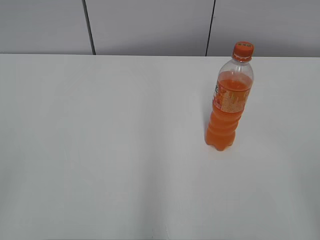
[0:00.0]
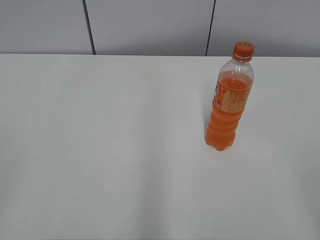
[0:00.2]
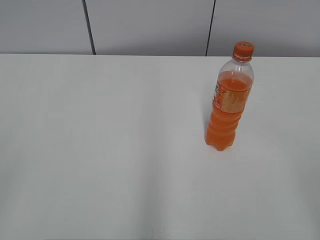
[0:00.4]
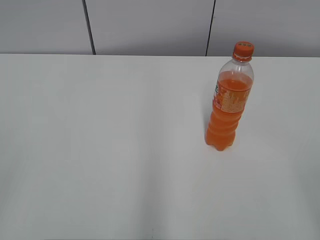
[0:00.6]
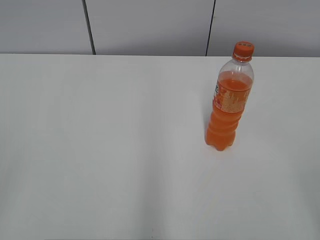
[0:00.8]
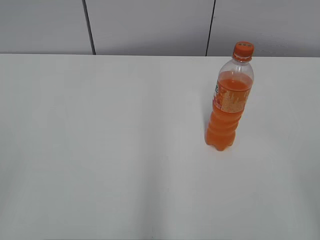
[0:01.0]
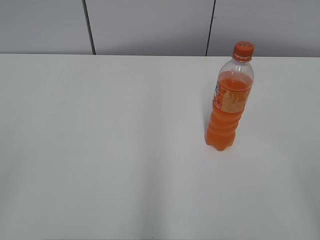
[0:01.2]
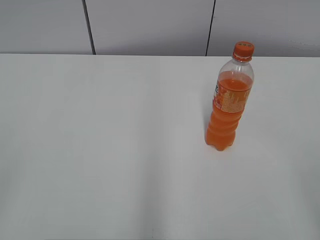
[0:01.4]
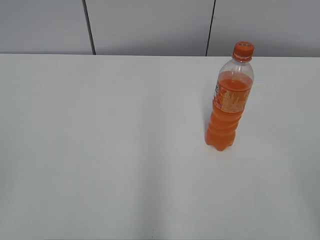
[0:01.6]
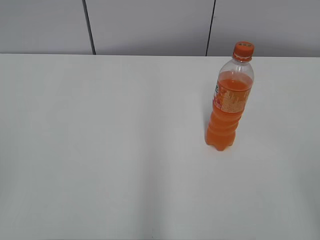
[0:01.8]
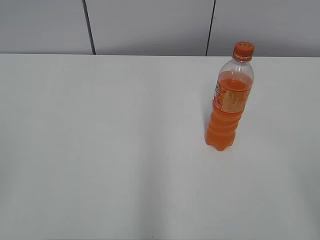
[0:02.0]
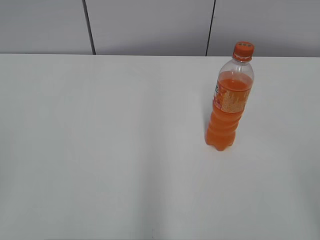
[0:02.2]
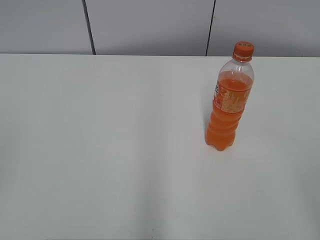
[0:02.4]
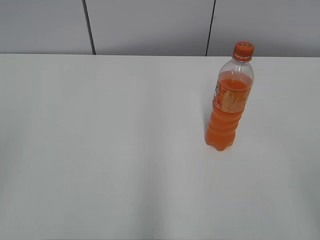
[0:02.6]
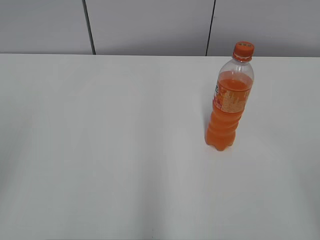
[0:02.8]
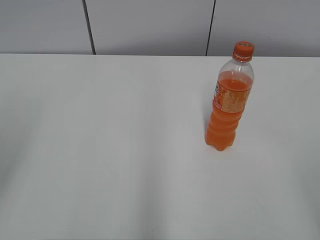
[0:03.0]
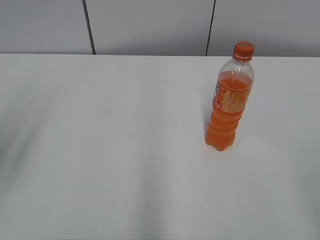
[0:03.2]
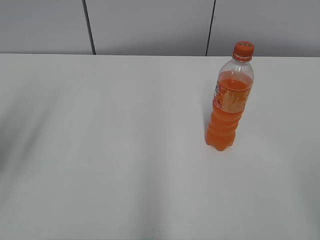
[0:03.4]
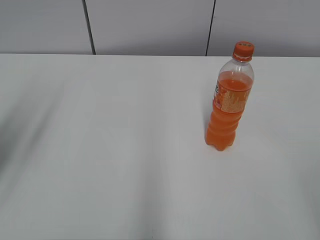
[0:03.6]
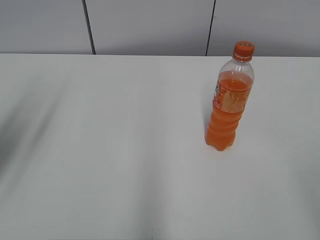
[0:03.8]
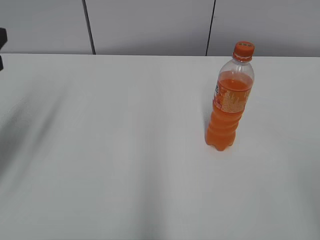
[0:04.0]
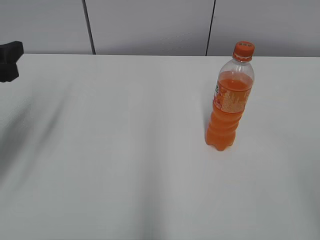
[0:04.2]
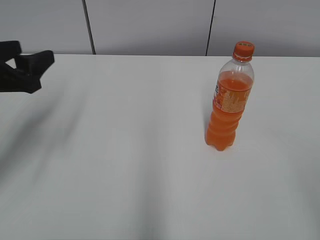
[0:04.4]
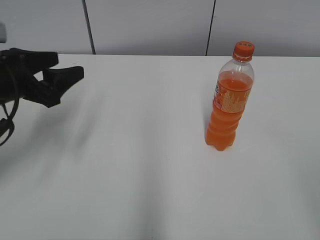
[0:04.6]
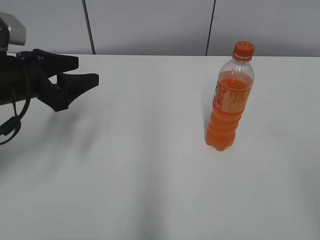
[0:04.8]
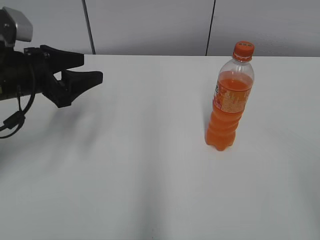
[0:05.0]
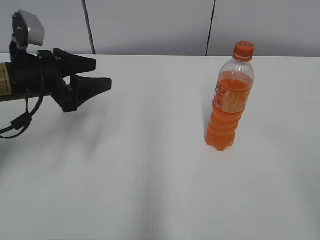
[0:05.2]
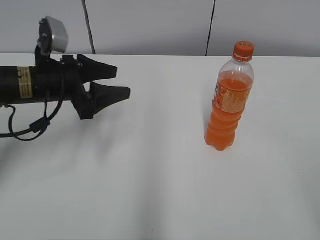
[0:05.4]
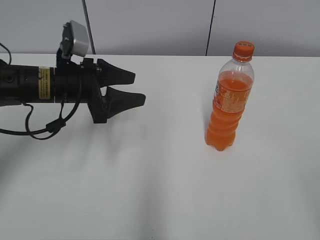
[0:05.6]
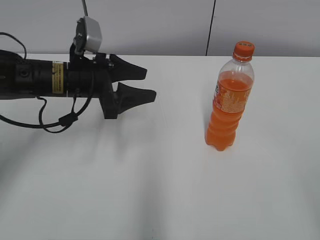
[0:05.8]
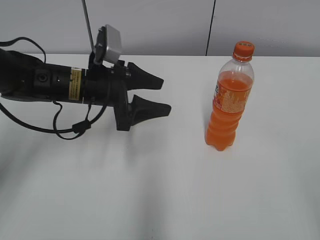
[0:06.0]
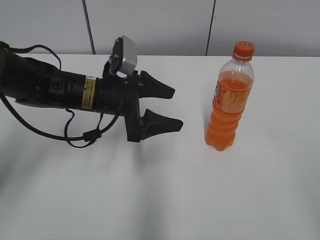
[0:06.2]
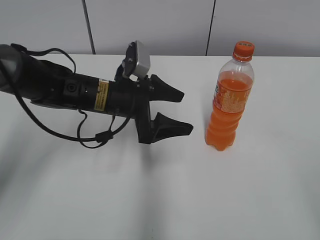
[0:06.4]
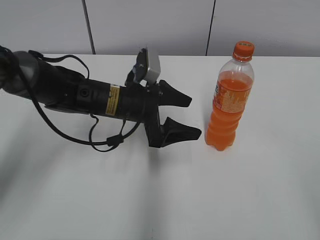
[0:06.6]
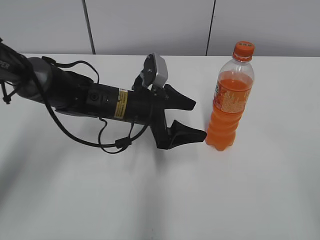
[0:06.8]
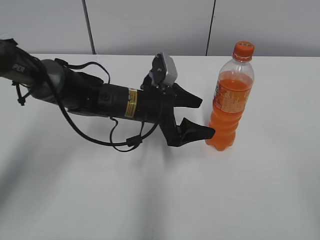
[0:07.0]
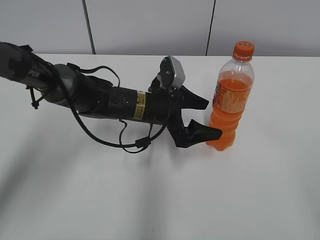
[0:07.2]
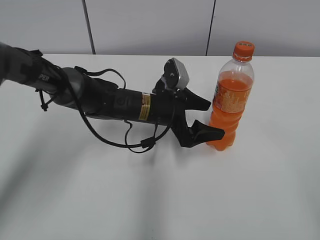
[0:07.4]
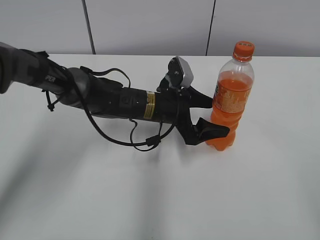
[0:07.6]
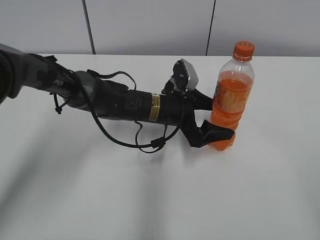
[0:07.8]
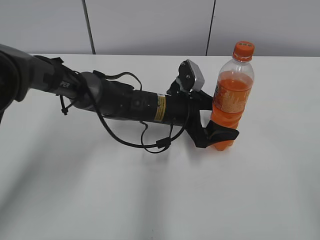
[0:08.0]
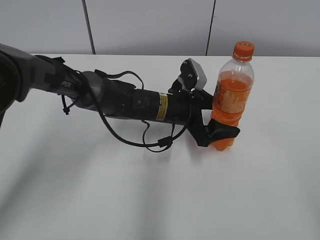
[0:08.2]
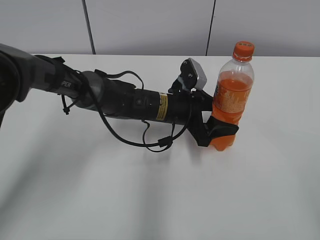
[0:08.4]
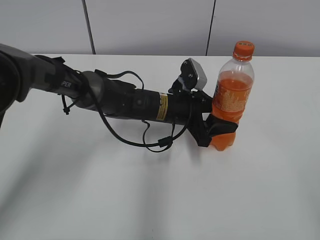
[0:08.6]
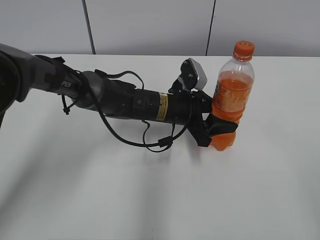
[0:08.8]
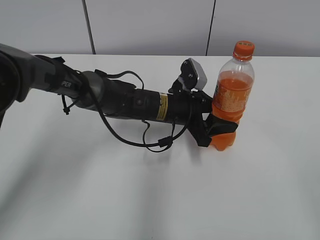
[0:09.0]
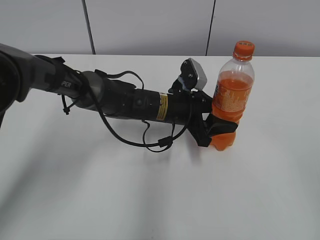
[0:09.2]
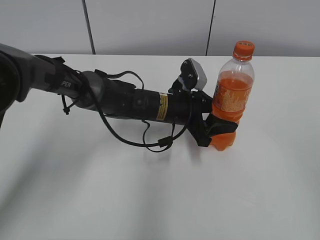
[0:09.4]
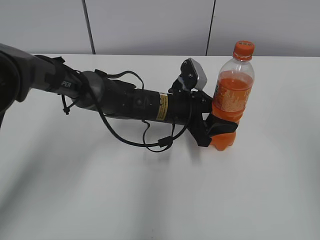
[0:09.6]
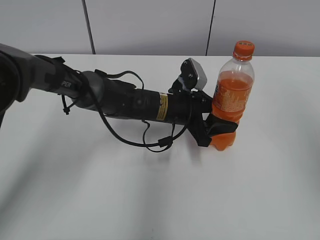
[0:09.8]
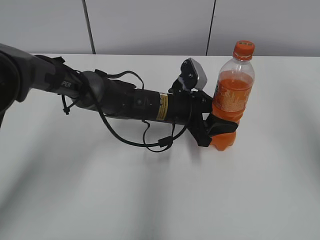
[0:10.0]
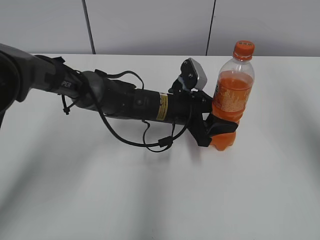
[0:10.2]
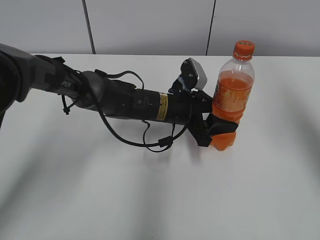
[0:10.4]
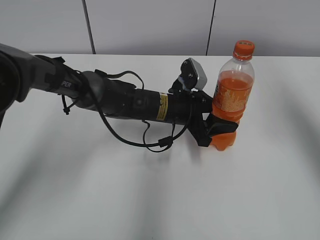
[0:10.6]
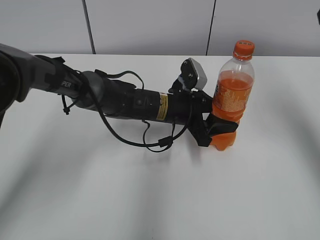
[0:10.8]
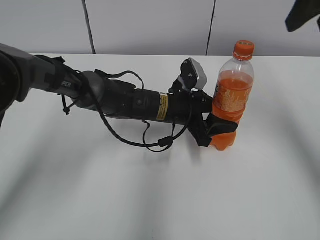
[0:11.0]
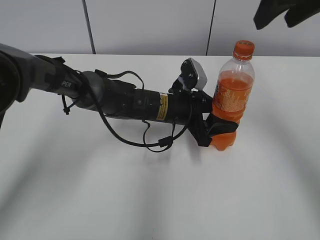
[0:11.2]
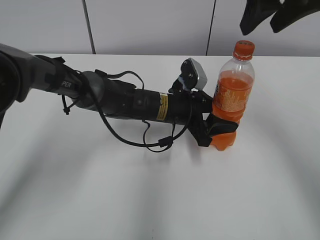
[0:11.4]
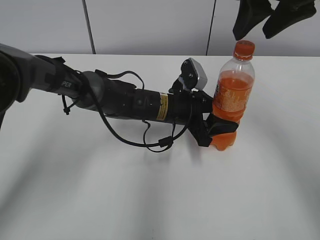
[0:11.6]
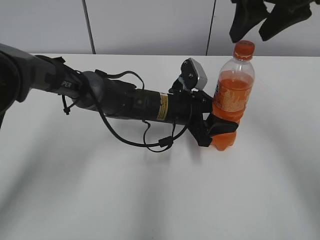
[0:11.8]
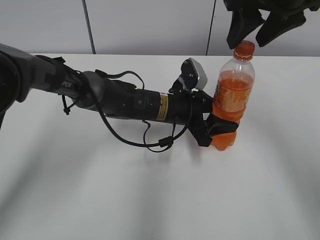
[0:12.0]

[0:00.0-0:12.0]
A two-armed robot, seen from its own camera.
Step, 0:00.0 to 0:09.8: Grab the Mirinda with the left hand.
0:03.0 to 0:04.4: The left gripper heads forward and downward, covering some 20 cm.
0:04.4 to 0:06.0: The left gripper moves to the right and forward, approximately 15 cm.
0:06.0 to 0:07.6: The left gripper moves to the right and downward, roughly 15 cm, and opens.
0:07.6 to 0:09.0: The left gripper closes up.
0:09.0 to 0:10.4: The right gripper moves forward and upward, approximately 30 cm, and closes its fingers.
0:10.4 to 0:12.0: The right gripper heads to the left, forward and downward, covering some 20 cm.

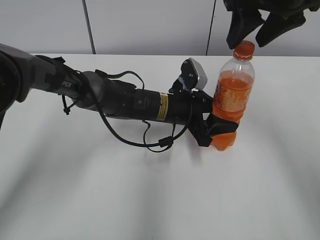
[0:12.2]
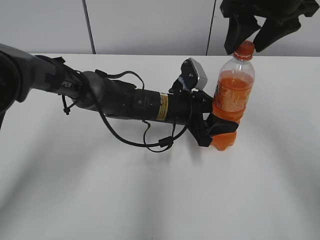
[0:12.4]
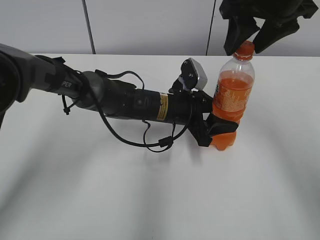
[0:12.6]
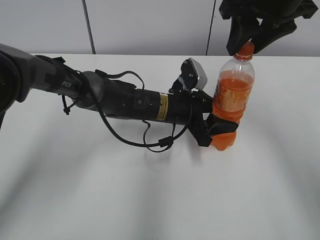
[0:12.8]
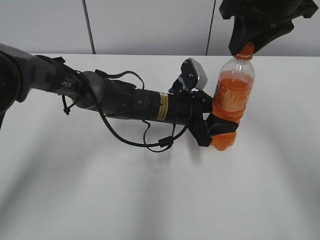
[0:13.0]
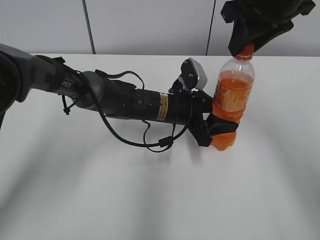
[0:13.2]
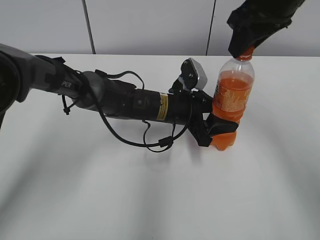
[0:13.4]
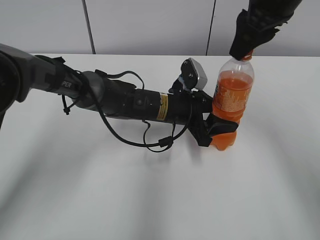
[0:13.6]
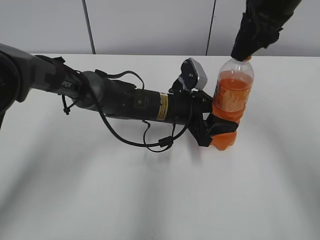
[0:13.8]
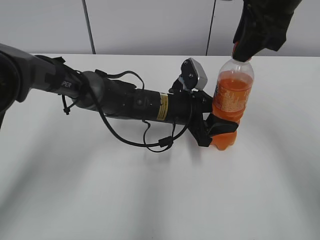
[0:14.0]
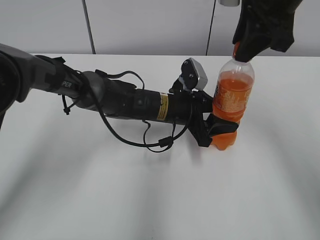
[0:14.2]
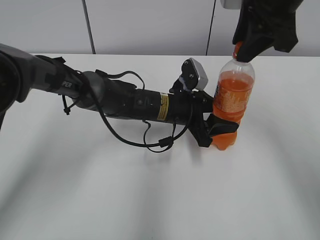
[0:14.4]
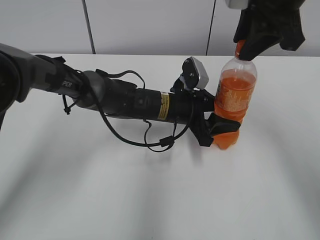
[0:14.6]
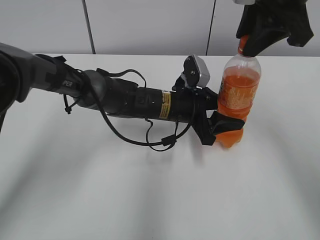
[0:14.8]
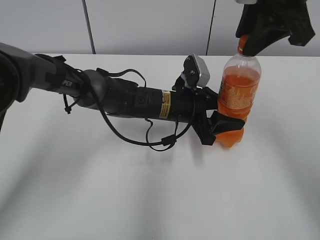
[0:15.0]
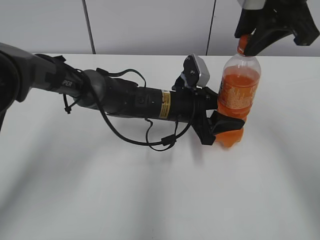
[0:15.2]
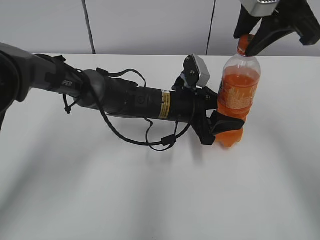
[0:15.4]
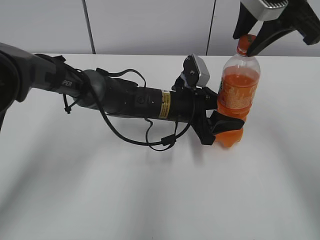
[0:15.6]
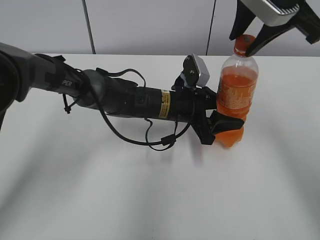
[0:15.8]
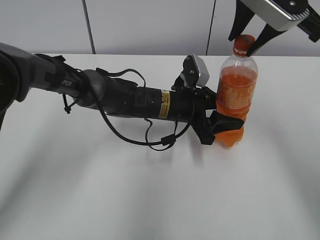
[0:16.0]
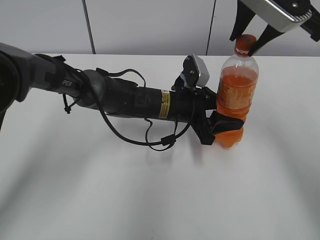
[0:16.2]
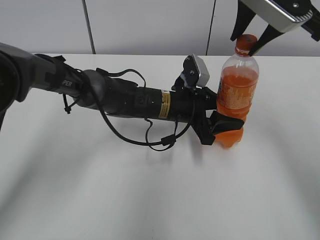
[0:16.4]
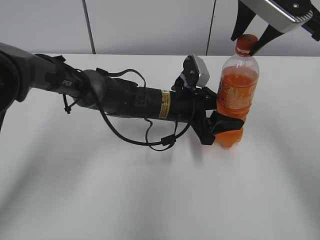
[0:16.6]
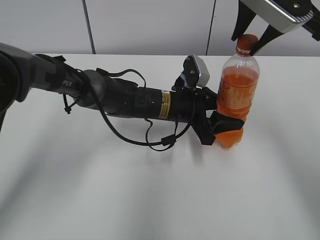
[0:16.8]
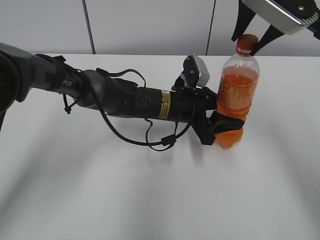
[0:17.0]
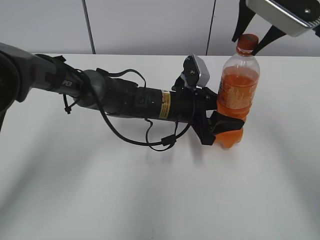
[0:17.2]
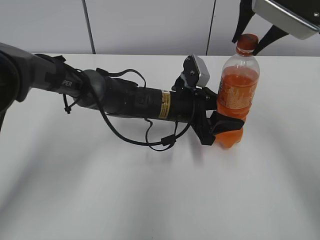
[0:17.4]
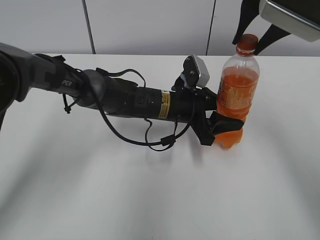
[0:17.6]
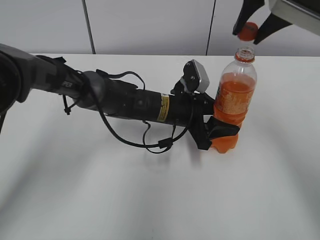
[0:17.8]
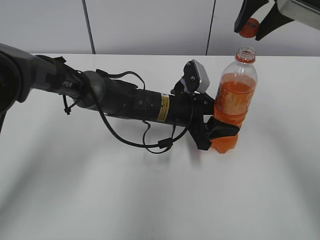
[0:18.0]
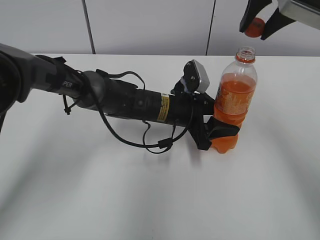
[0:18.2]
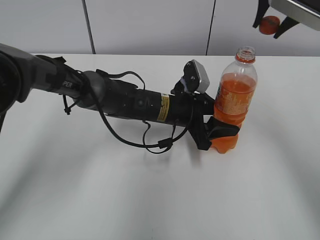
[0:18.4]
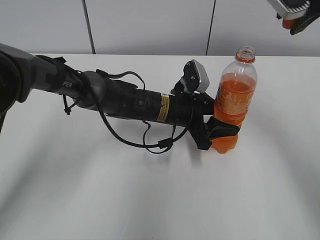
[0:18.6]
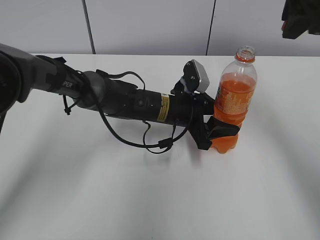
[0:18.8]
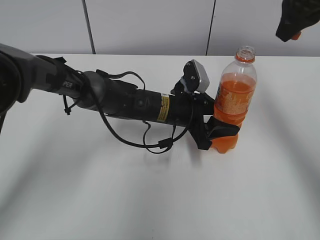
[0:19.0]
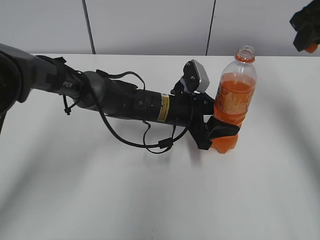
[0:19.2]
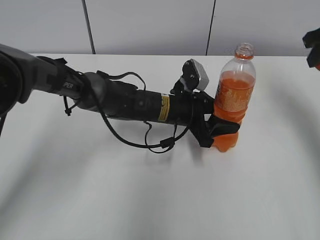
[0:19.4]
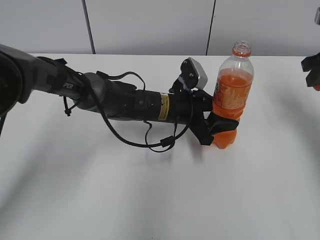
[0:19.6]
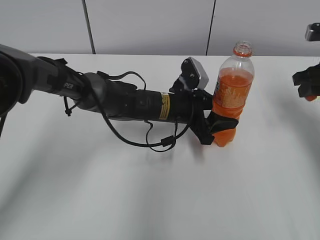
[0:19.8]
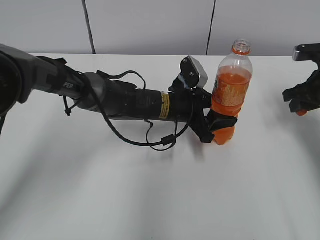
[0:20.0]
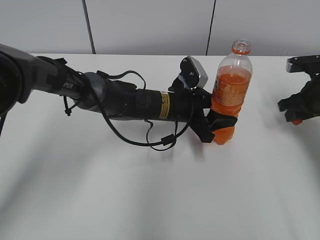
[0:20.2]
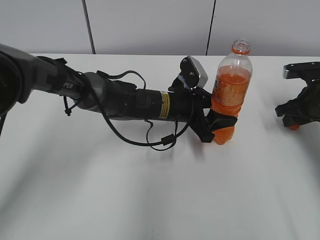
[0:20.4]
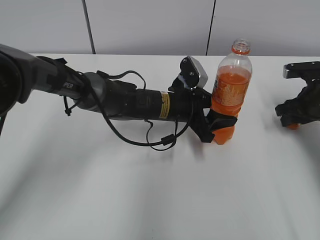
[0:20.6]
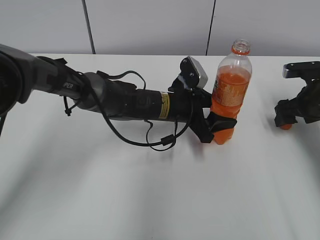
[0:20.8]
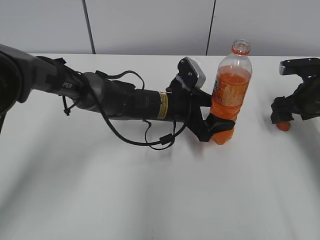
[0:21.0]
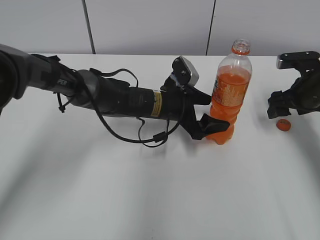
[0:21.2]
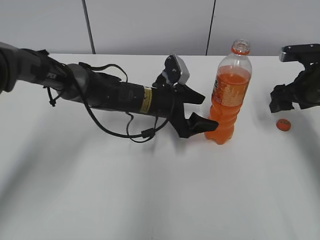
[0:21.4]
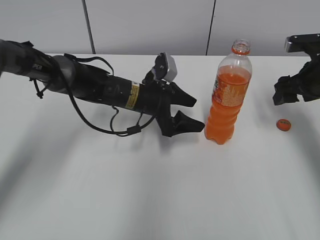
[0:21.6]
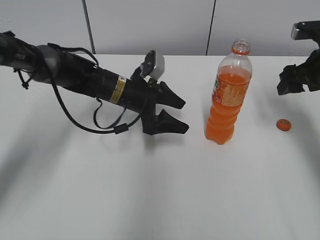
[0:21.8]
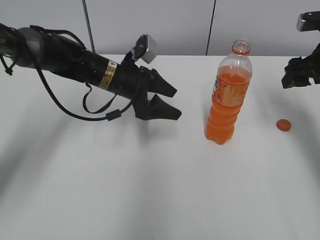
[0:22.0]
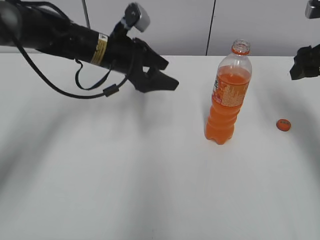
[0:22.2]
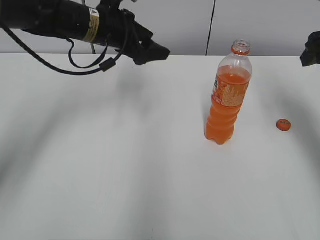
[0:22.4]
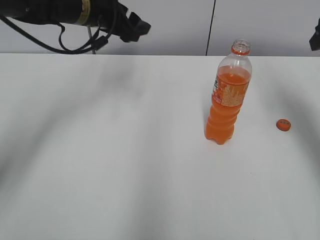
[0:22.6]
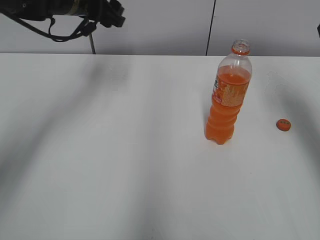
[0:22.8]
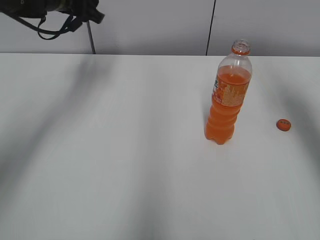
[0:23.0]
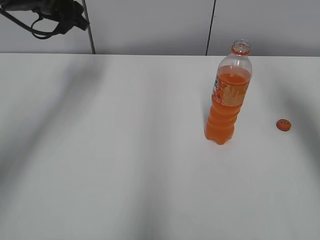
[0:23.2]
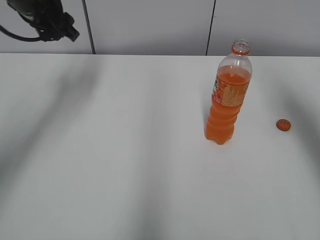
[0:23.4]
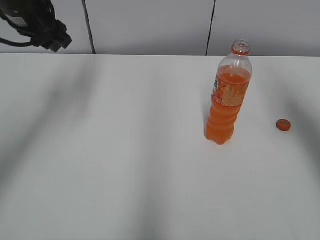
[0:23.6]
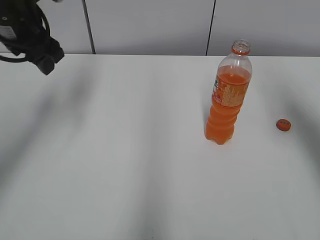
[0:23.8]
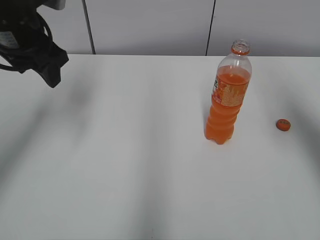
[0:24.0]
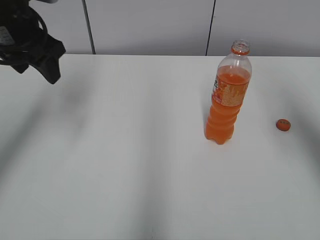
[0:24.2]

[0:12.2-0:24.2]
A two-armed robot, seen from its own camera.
Step, 0:12.2 to 0:17.6: Fix the Mirinda on the left.
Step, 0:17.8 to 0:20.6: Place the bottle cap on the right.
Step, 0:20.8 to 0:21.0: Place the Mirinda with the left hand.
0:12.2 to 0:13.8: The right gripper closes.
0:18.2 to 0:19.8: The right gripper goes approximately 20 cm to the right and downward.
0:19.8 to 0:21.2: The right gripper travels downward by some 10 cm, and opens up; the left gripper opens its fingers.
0:21.2 to 0:22.6: The left gripper travels upward and to the left by about 20 cm, and closes, while the right gripper shifts approximately 15 cm upward.
0:22.6 to 0:24.2: The right gripper shifts approximately 10 cm backward and upward. Meanwhile the left gripper is displaced to the left and backward by roughly 10 cm.
